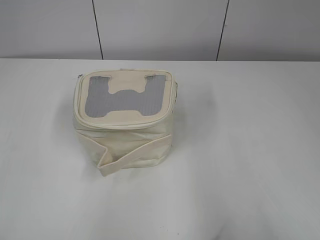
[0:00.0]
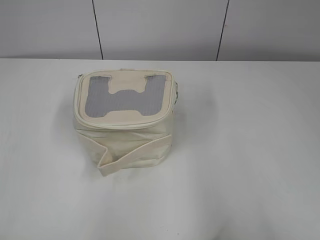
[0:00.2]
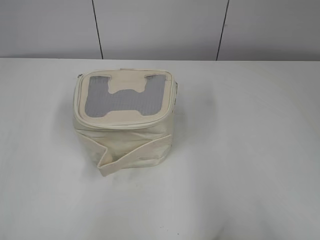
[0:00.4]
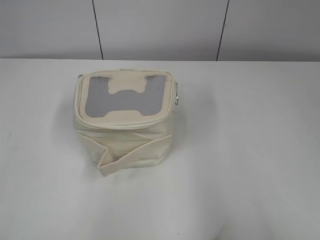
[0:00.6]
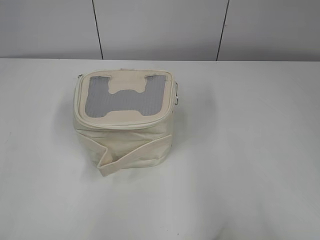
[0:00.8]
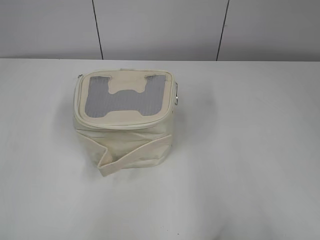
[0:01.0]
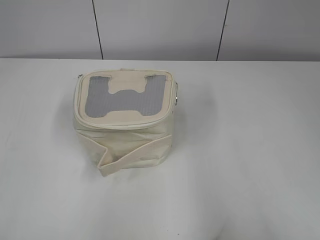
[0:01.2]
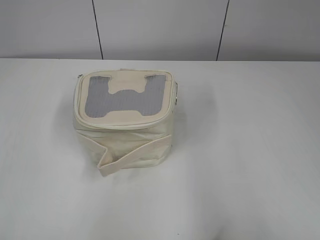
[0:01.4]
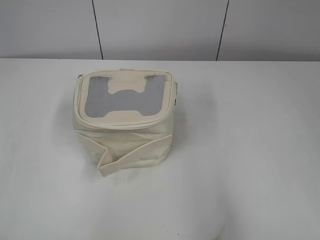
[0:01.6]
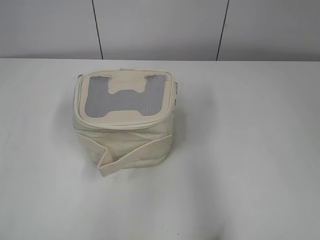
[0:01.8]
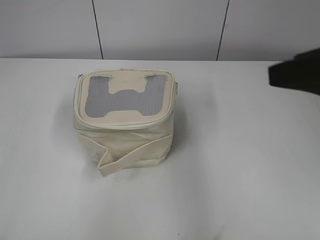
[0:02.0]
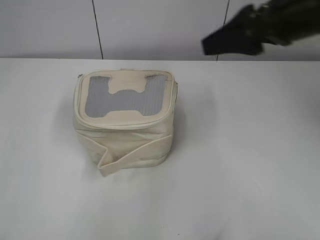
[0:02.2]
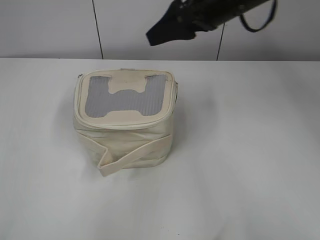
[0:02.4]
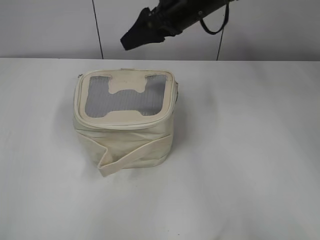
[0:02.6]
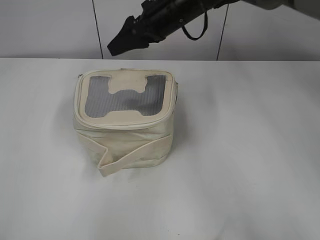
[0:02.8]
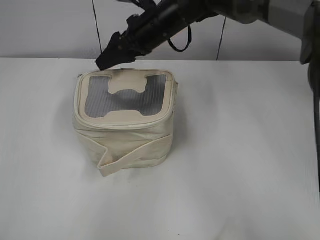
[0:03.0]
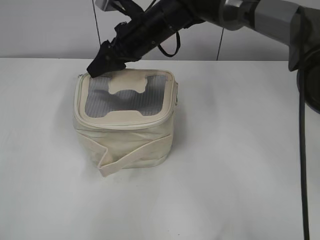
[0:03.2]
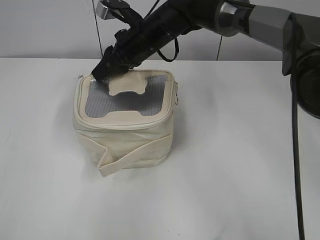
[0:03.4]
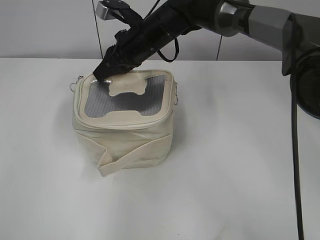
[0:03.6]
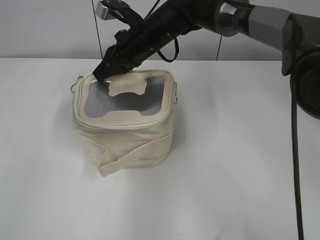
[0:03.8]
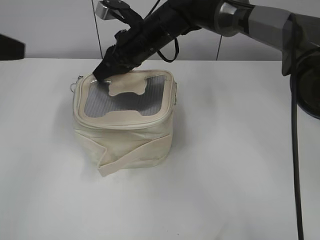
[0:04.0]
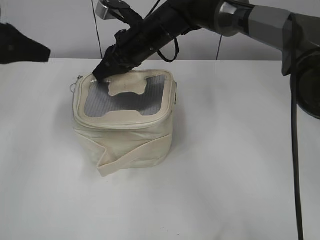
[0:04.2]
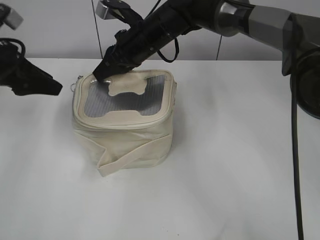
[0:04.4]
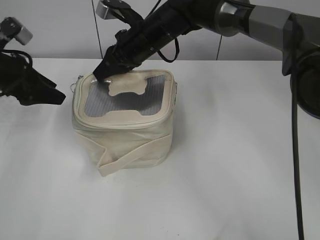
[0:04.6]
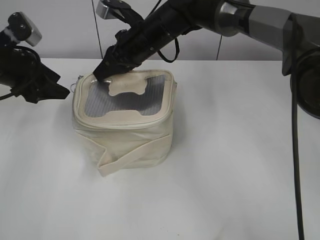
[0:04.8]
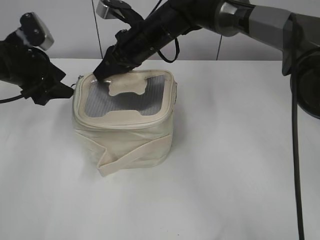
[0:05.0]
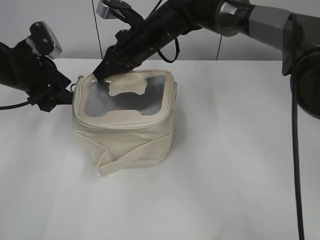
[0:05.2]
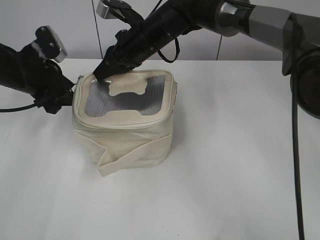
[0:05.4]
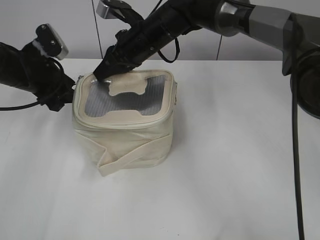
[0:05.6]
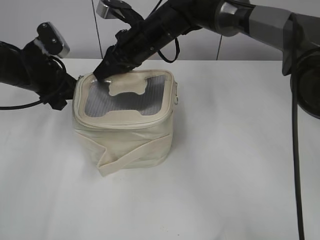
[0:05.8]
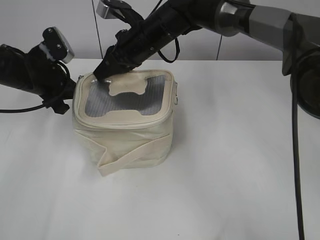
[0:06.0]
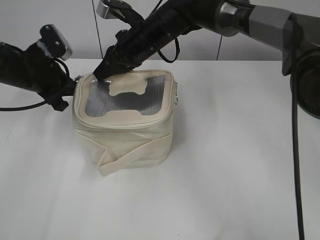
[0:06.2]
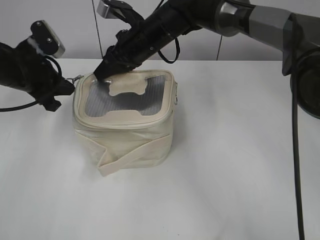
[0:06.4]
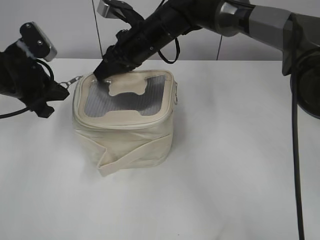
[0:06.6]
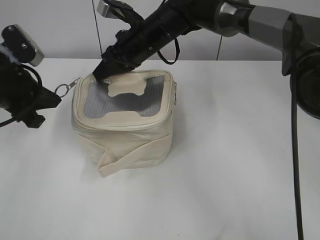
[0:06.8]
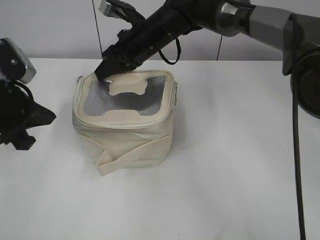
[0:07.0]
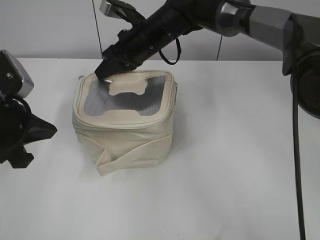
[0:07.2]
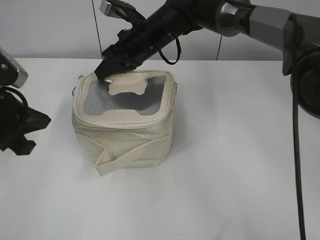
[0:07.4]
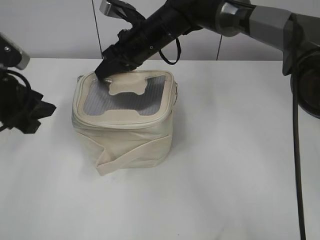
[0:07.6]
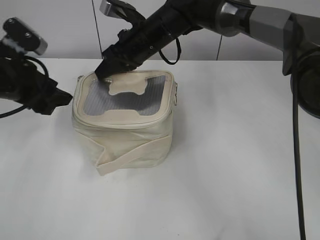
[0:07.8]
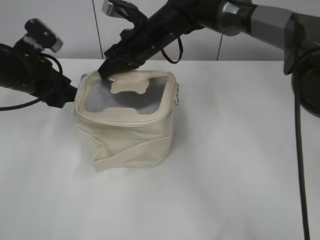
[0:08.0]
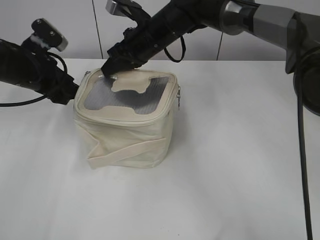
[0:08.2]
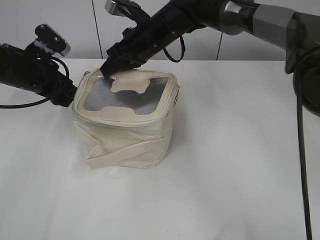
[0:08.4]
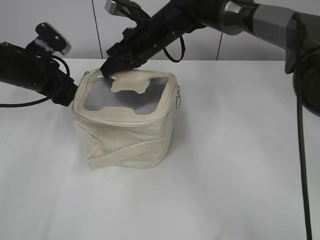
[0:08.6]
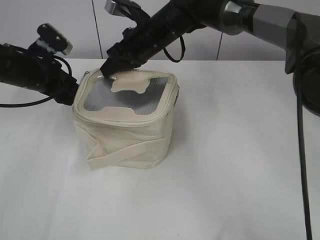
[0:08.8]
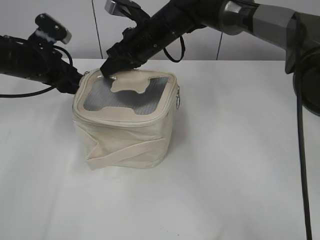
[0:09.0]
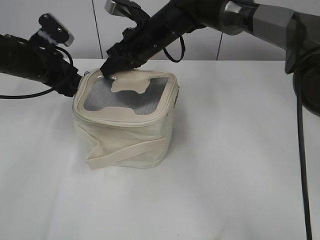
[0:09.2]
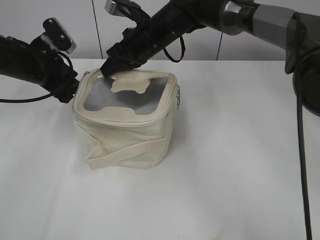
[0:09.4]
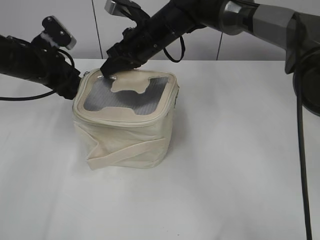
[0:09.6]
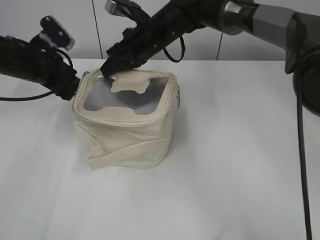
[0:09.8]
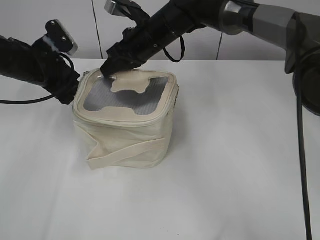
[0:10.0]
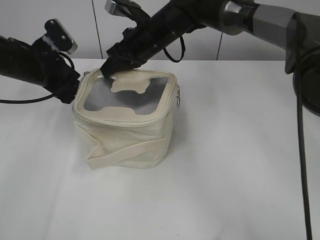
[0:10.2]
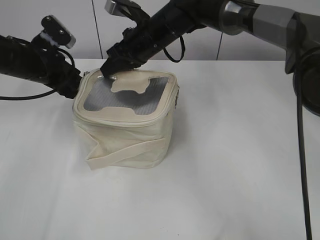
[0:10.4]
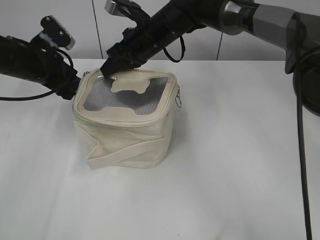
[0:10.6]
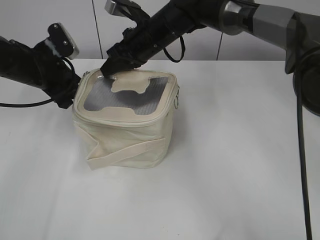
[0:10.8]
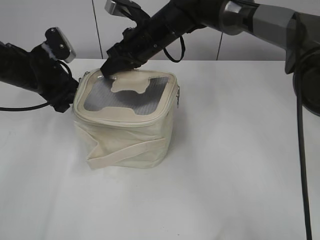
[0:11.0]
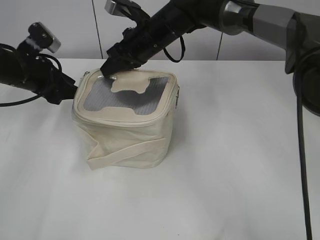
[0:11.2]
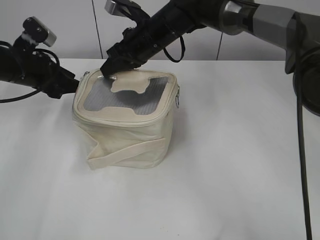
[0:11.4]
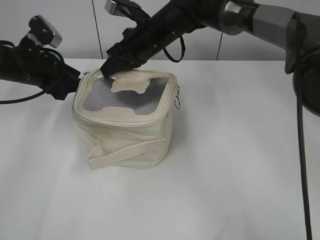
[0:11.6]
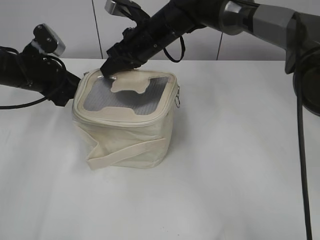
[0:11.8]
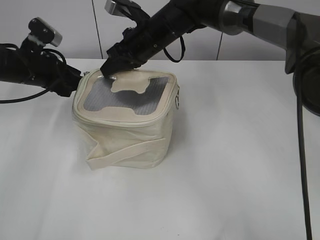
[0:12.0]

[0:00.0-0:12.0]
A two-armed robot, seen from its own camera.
0:01.6 to 0:03.0: The right gripper shifts approximately 50 cm forward and to the left.
0:03.0 to 0:04.4: The left gripper moves forward, roughly 35 cm, and opens its fingers; the right gripper closes up.
0:04.4 to 0:06.0: The left gripper moves downward, about 5 cm, and closes its fingers.
0:06.0 to 0:07.6: The left gripper travels backward by about 10 cm, and opens its fingers.
0:07.6 to 0:09.0: The left gripper shifts some 15 cm forward.
0:09.0 to 0:12.0: The grippers make only small movements.

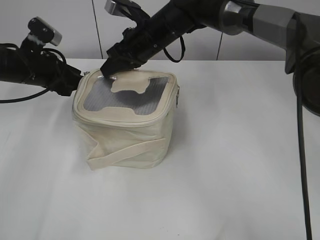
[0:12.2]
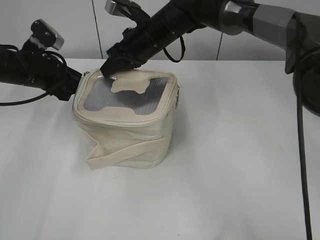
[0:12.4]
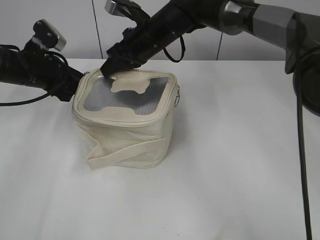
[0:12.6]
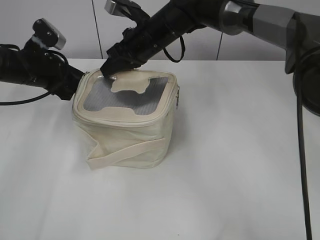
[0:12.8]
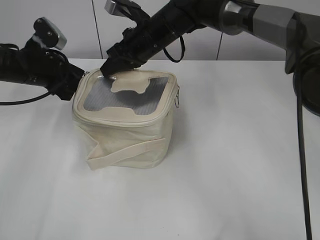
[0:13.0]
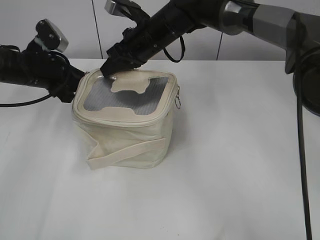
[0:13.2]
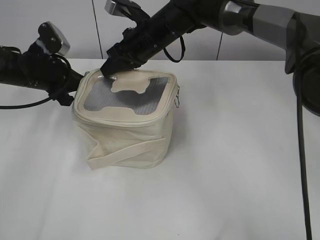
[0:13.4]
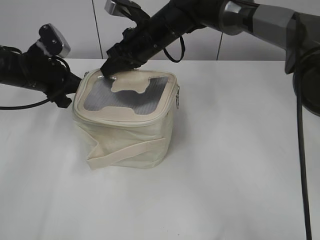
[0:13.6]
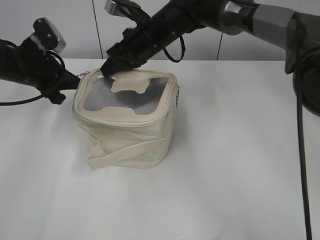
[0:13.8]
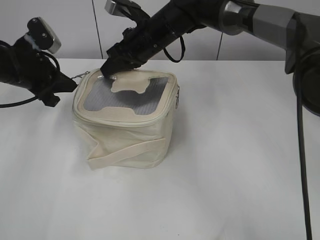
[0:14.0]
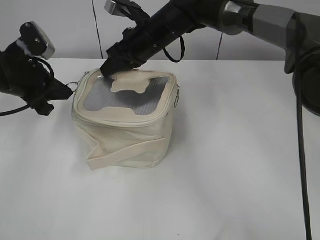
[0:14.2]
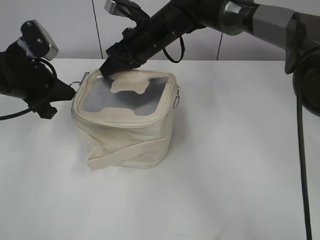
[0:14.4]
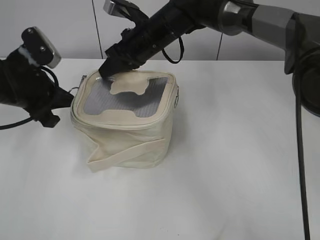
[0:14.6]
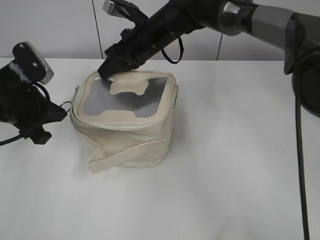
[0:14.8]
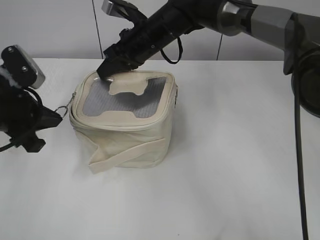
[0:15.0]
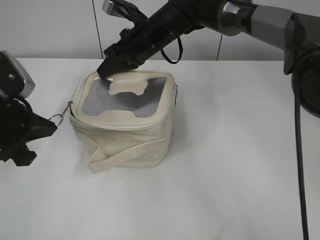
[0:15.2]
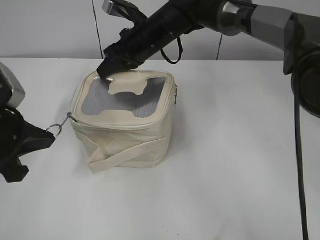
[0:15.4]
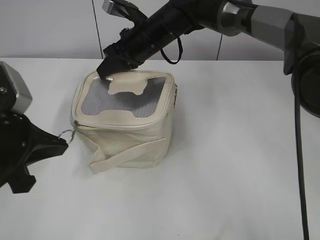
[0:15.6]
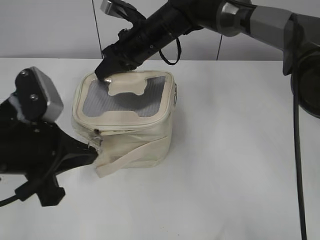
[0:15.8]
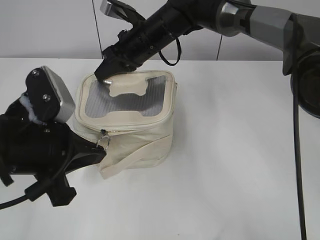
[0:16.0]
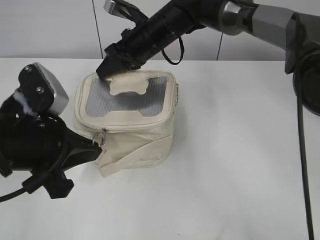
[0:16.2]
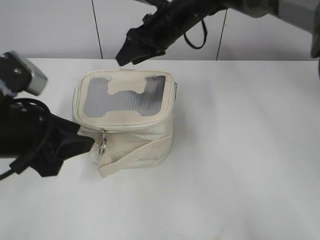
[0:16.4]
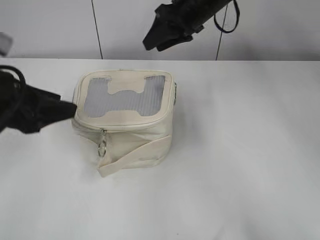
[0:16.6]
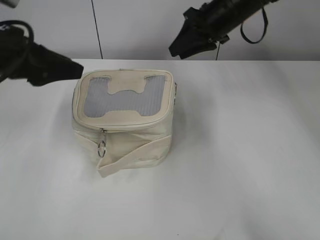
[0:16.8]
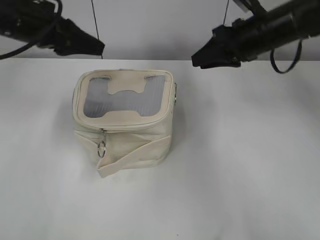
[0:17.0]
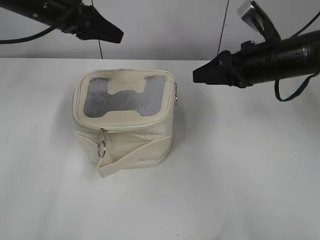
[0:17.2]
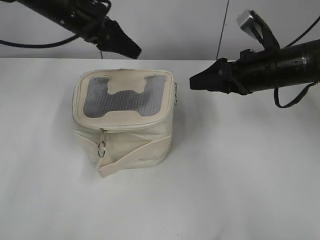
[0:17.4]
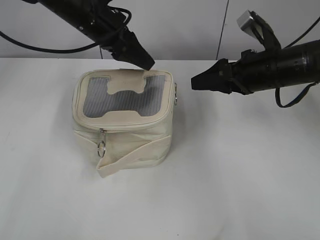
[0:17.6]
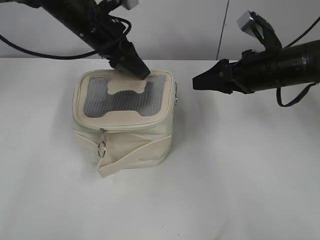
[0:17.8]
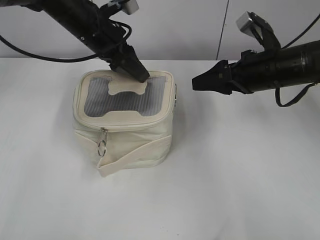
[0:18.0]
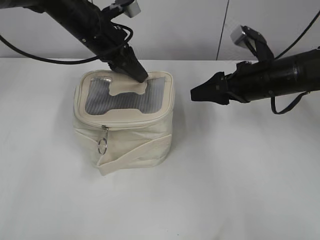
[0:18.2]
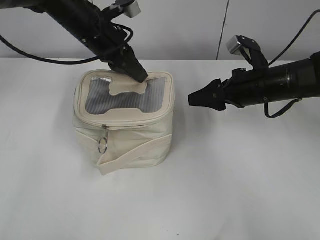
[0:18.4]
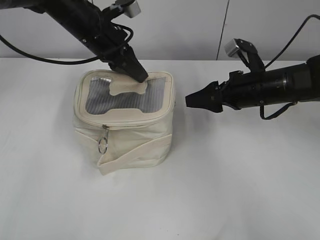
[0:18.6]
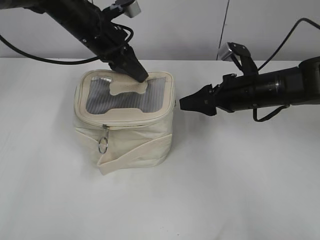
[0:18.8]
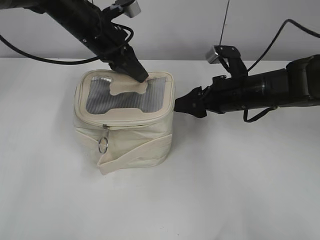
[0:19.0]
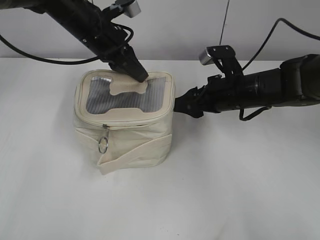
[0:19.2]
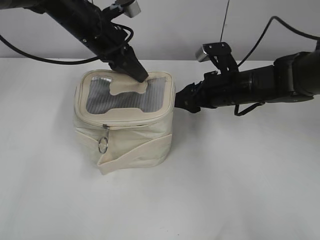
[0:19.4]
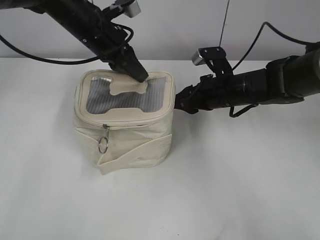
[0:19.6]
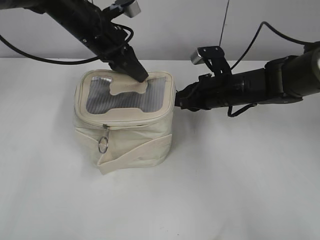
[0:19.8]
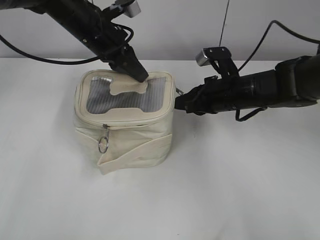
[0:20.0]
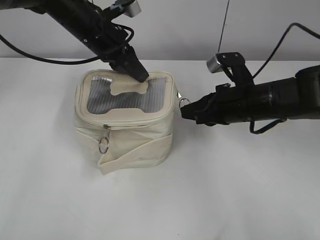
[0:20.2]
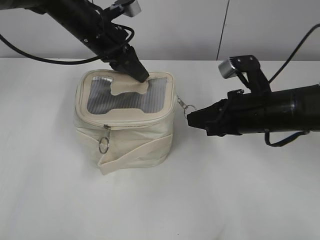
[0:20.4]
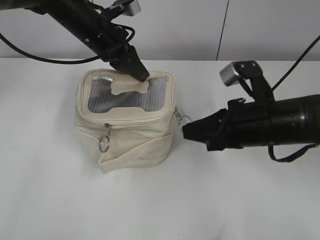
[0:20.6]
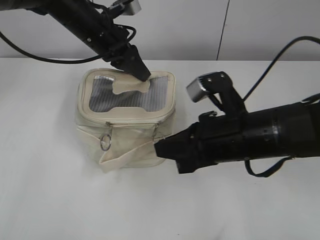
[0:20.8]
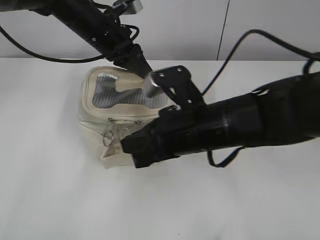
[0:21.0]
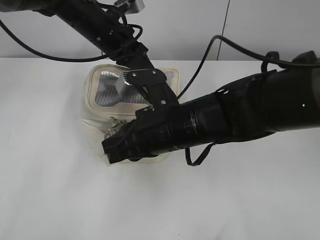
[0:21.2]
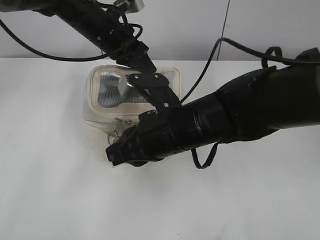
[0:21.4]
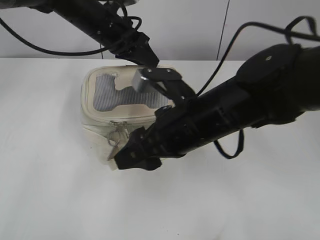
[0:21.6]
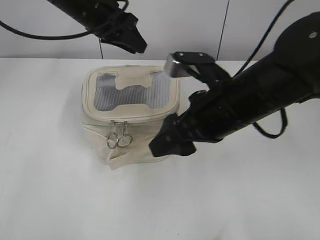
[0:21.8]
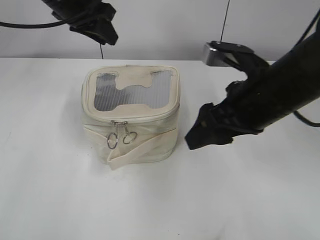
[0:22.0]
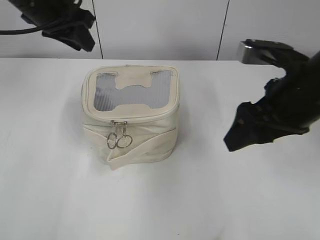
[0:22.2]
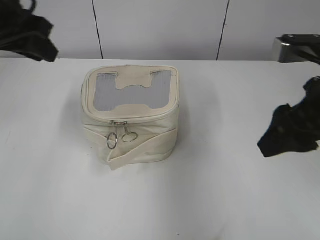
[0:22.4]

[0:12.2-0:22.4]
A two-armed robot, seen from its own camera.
Step, 0:12.2 to 0:16.2: Zip up the bag with your left hand.
Step, 0:16.4 to 0:21.4: Zip up the bag with your right hand.
0:12.2 to 0:13.6: The left gripper closes its fingers.
0:13.6 to 0:15.2: The left gripper shifts roughly 15 cm backward.
0:15.2 to 0:16.6: The left gripper opens; the right gripper shifts roughly 10 cm to the right and upward, and opens.
0:16.6 to 0:18.0: The right gripper heads to the right, backward and downward, covering some 20 cm. Meanwhile the left gripper shifts about 25 cm forward and to the right.
0:18.0 to 0:19.4: The left gripper closes up. Meanwhile the right gripper shifts some 5 cm downward.
0:19.4 to 0:21.0: The right gripper shifts about 15 cm backward and to the left, and closes up.
0:21.0 to 0:22.4: The left gripper heads to the left, backward and upward, covering roughly 20 cm, and opens up; the right gripper heads to the right and upward, covering some 15 cm, and opens.
